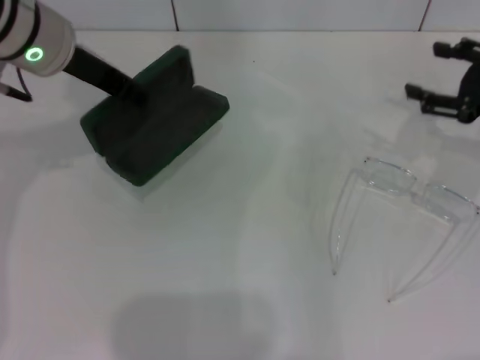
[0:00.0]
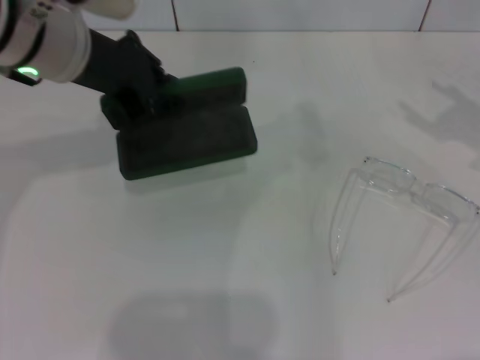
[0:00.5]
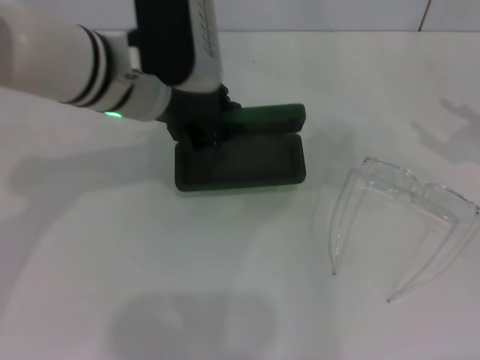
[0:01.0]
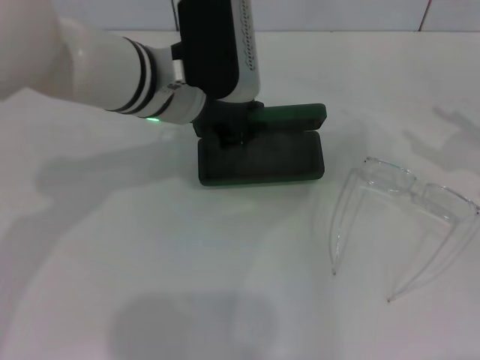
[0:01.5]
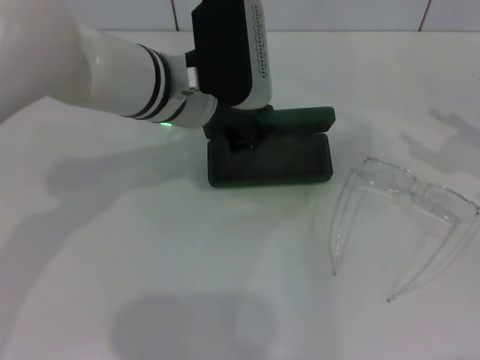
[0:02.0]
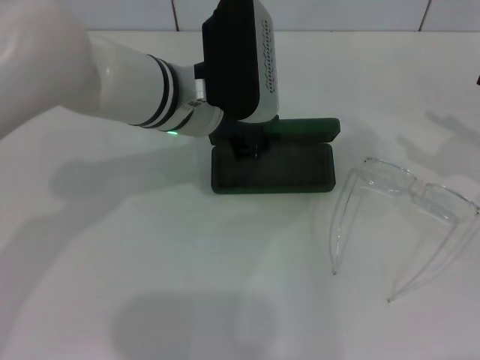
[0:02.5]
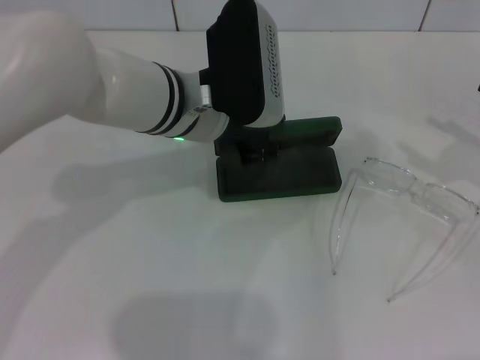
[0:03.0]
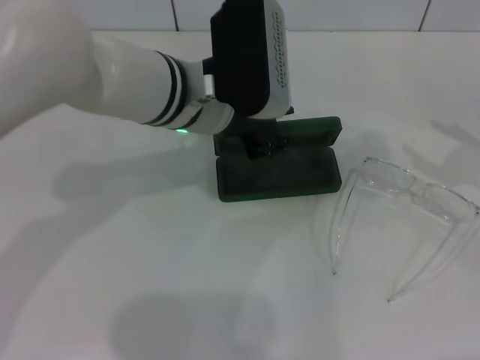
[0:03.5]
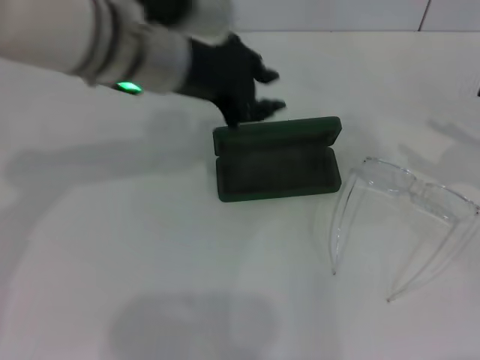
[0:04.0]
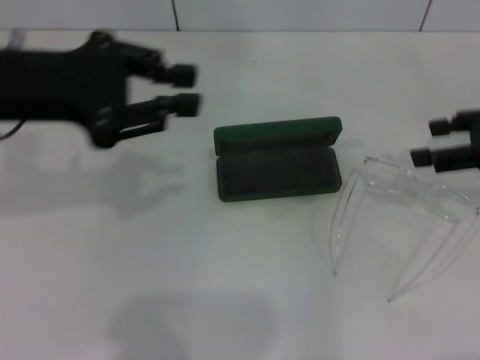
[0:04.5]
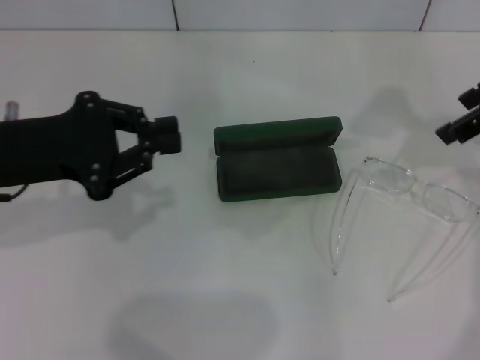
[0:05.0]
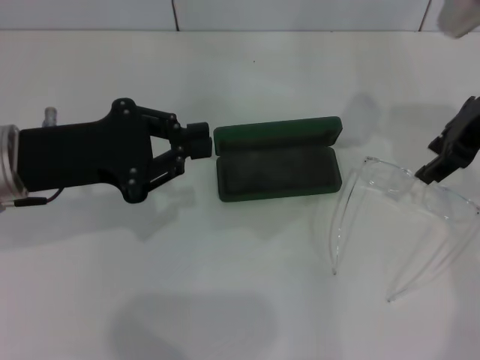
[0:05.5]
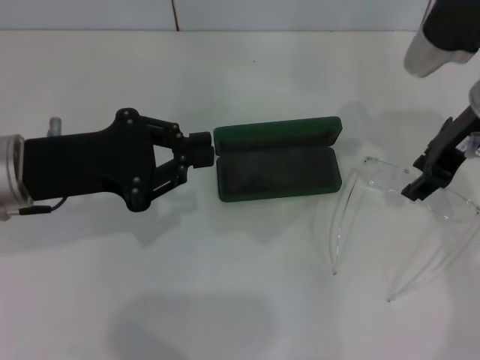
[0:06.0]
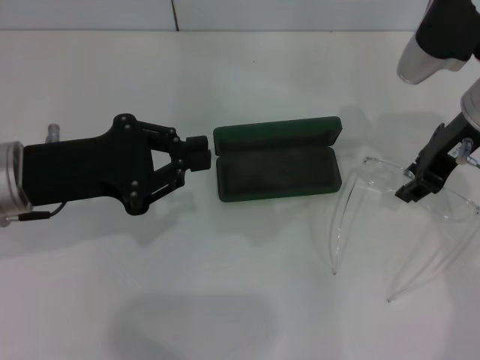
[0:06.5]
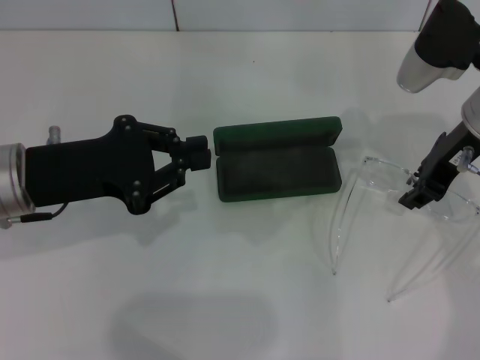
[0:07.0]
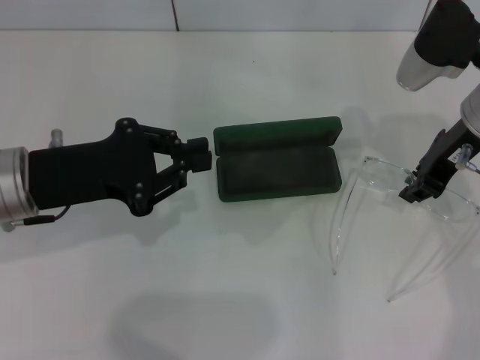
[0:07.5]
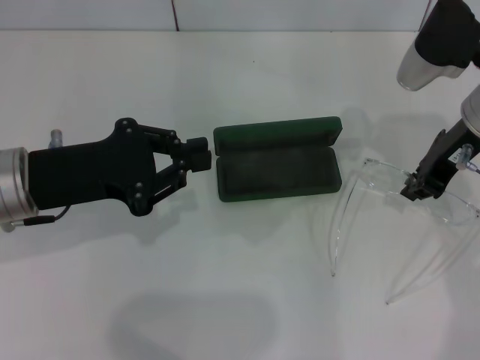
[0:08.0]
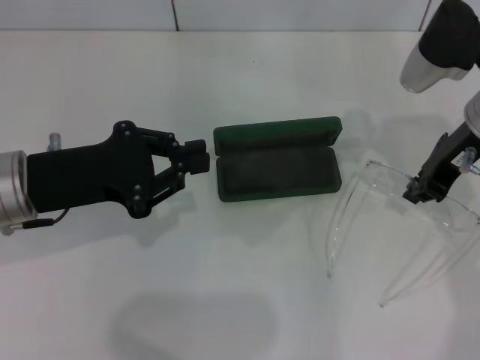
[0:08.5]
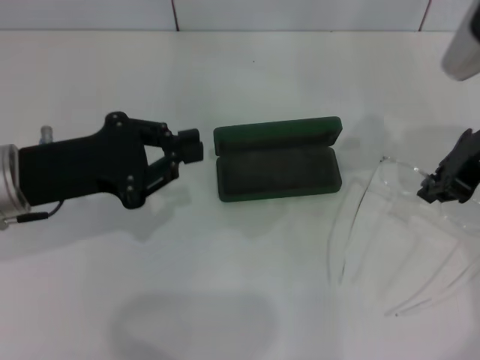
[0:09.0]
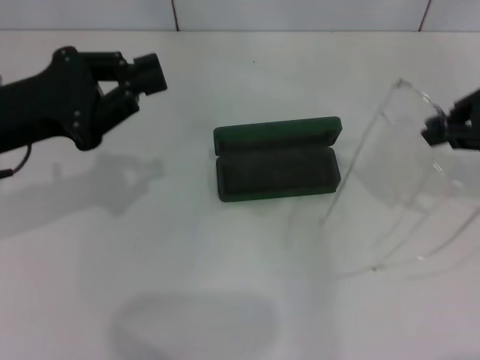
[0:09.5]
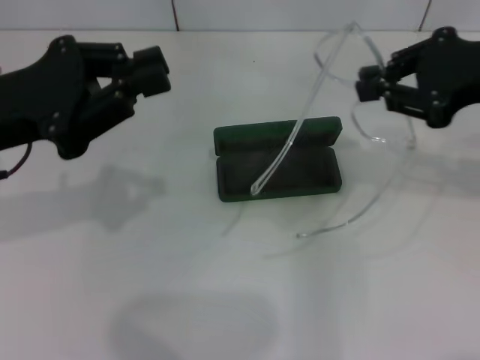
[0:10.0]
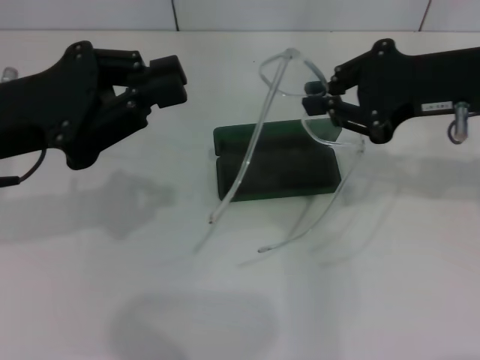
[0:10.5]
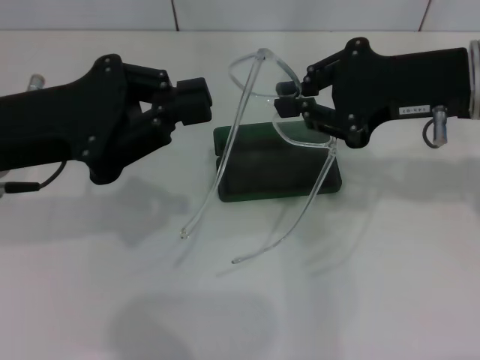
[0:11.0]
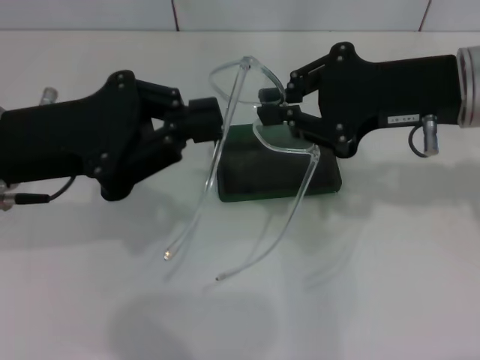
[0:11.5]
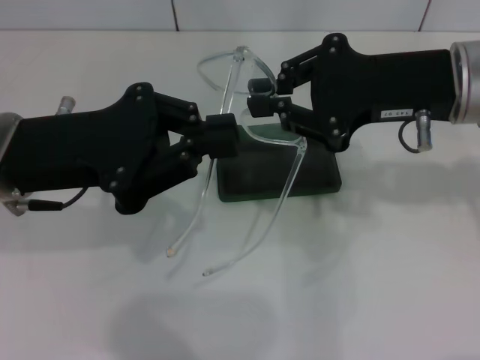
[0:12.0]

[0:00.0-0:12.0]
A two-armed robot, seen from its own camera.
Step, 0:00.0 to 0:03.0: Place the glasses case in the center of the table with your left hand.
Step, 0:03.5 to 0:08.0: Grab the eyeglass frame with your right hand.
0:00.0 to 0:02.0: The right gripper is displaced to the right and backward by about 5 cm. Meanwhile the left gripper is displaced to the right and downward by some 10 cm.
0:02.0 to 0:04.0: The left gripper is displaced upward by about 5 cm.
0:04.0 to 0:06.0: The left gripper goes about 15 cm to the left, downward and backward, while the right gripper is displaced to the left and forward by roughly 20 cm.
0:06.0 to 0:08.0: The right gripper closes.
0:08.0 to 0:10.0: The left gripper moves upward, some 5 cm. The right gripper shifts some 10 cm upward and backward.
0:10.0 to 0:12.0: The right gripper heads to the left, covering some 5 cm.

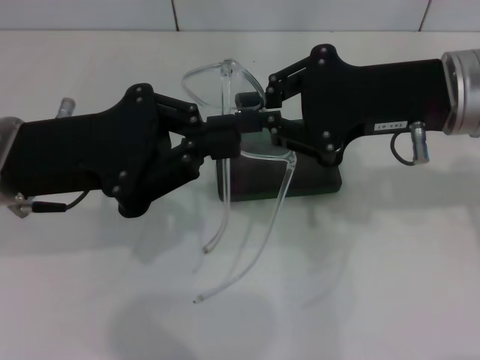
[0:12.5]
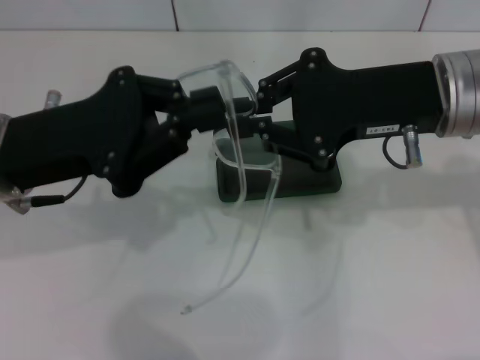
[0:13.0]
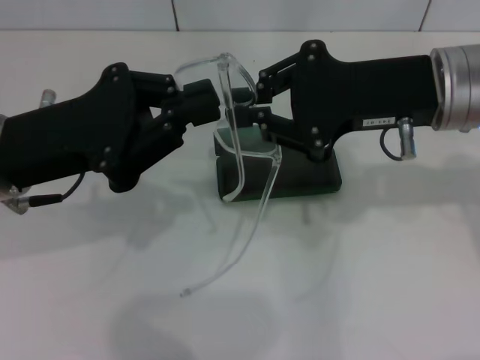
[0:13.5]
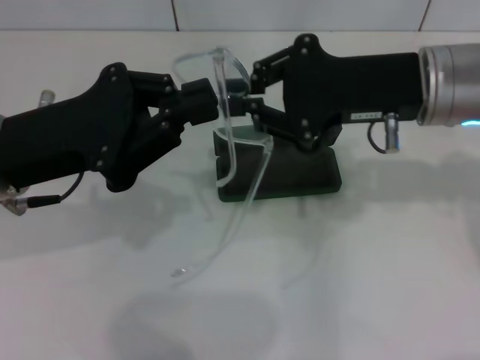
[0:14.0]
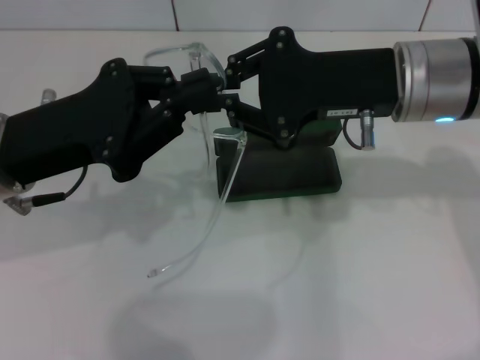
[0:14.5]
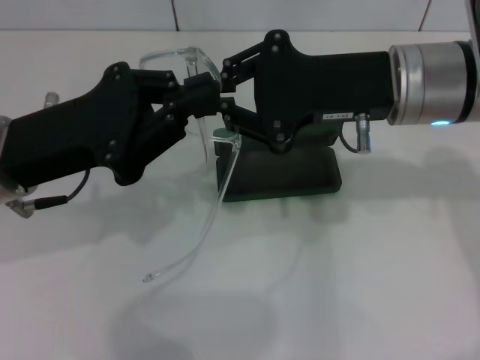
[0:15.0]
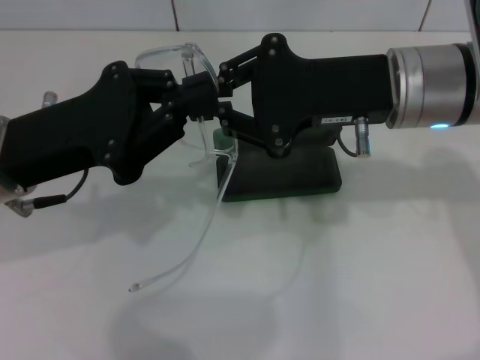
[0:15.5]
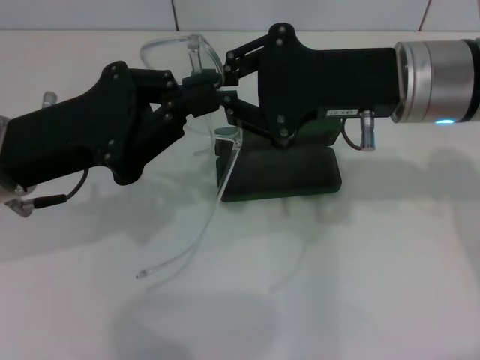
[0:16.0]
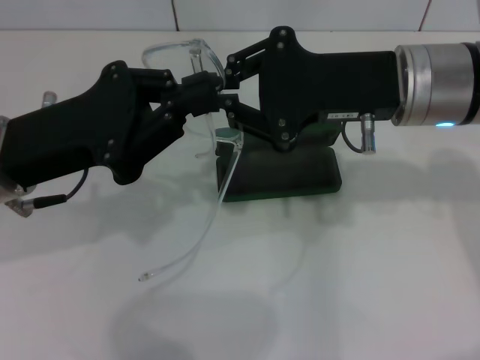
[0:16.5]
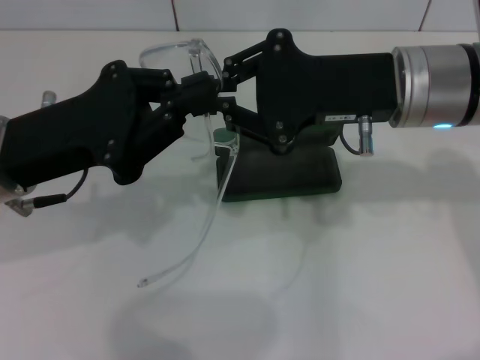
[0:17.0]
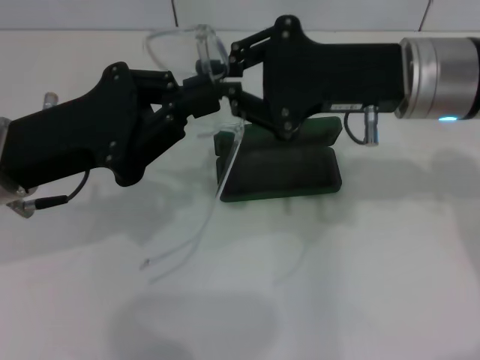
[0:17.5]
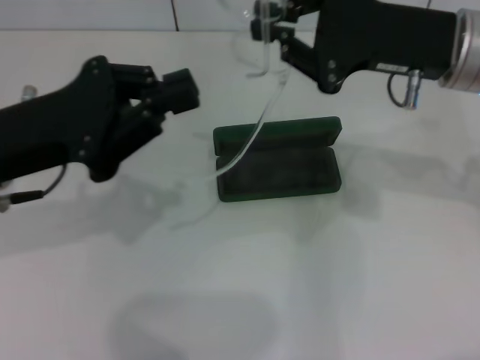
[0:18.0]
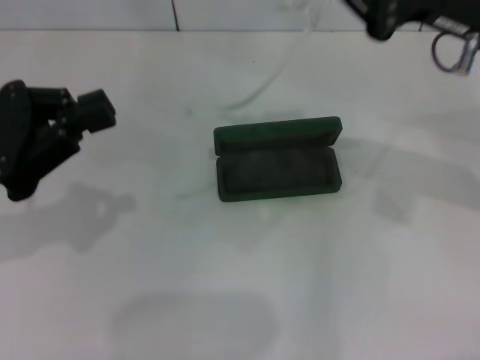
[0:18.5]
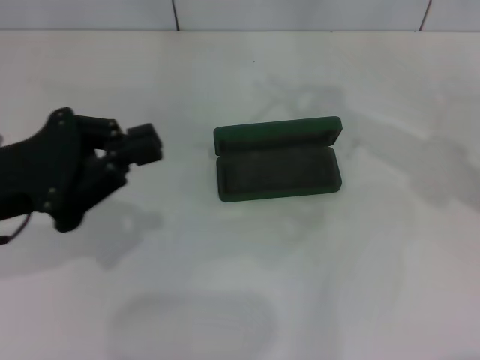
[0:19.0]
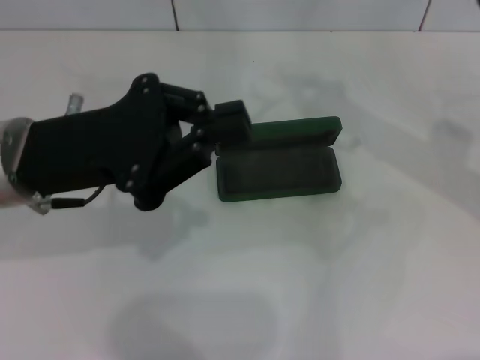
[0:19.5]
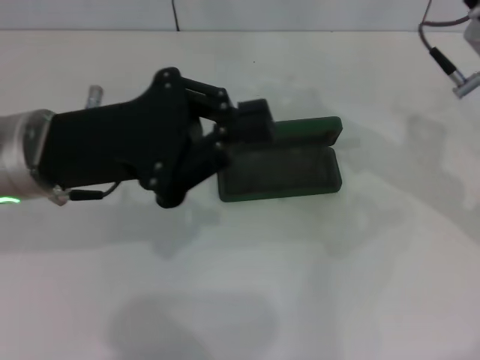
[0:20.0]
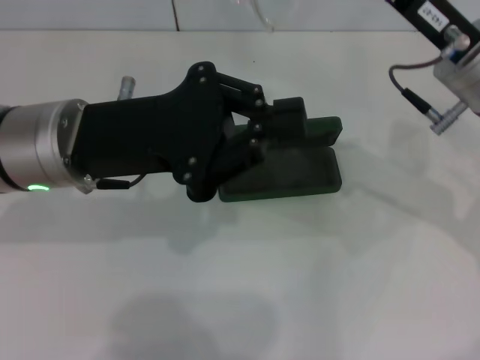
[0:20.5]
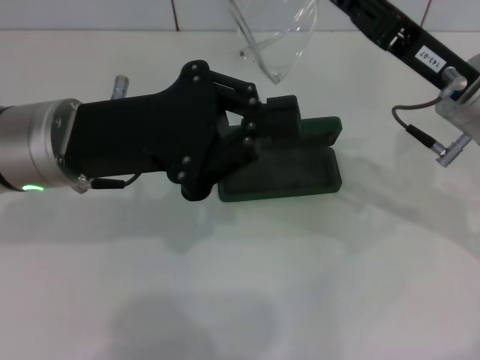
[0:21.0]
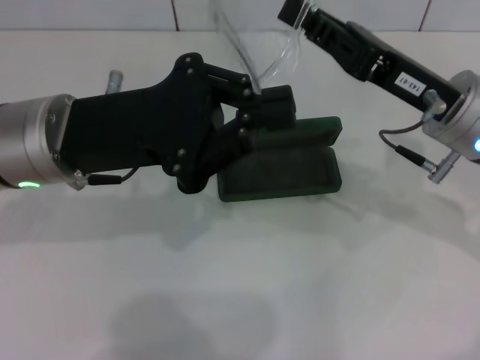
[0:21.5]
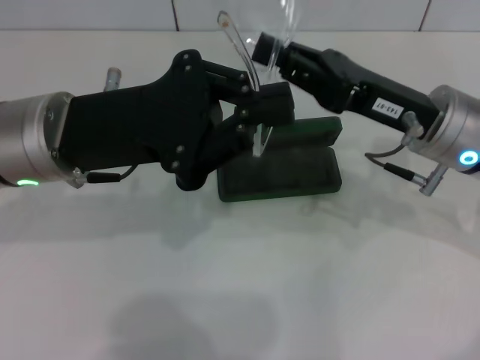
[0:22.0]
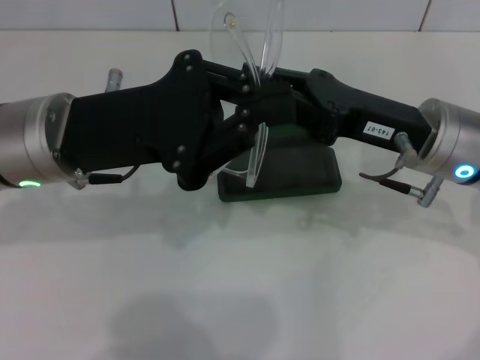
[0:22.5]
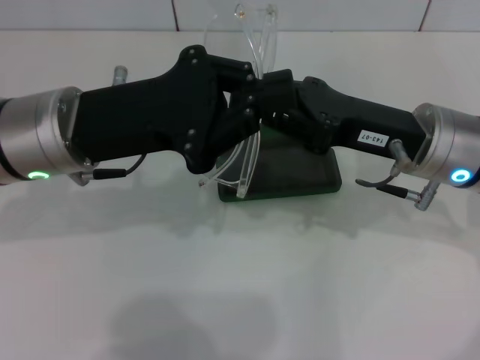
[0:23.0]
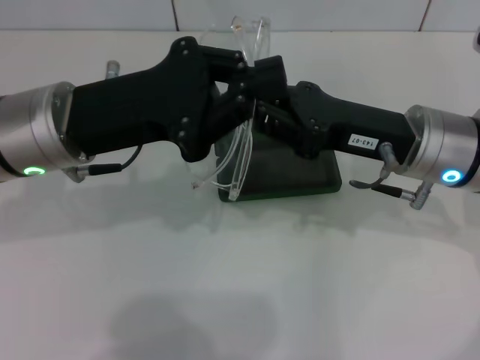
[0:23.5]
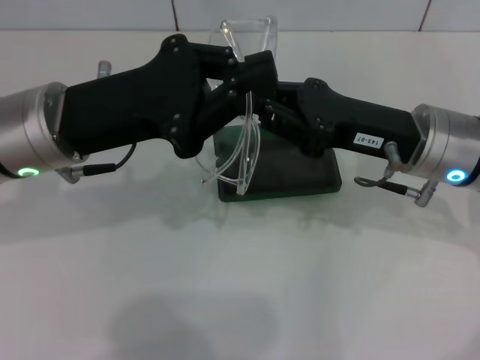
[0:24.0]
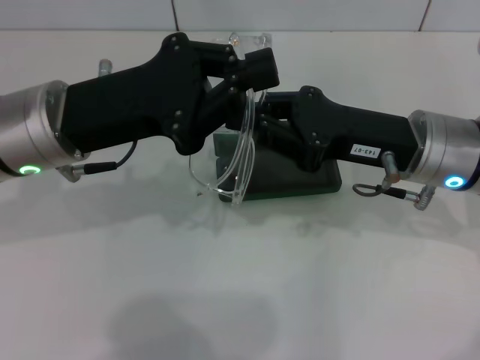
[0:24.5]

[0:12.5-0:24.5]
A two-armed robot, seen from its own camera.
0:14.5 to 0:16.5: The two grippers keep their place.
0:16.5 to 0:18.5: The right gripper heads to the right, covering some 5 cm. The left gripper goes some 5 cm to the left.
0:18.5 to 0:20.5: The right gripper ends up roughly 5 cm from where it was, while the left gripper shifts some 10 cm to the right.
0:22.5 to 0:24.5: There are only small adjustments of the grippers.

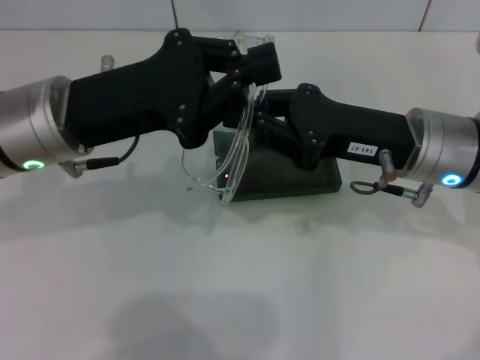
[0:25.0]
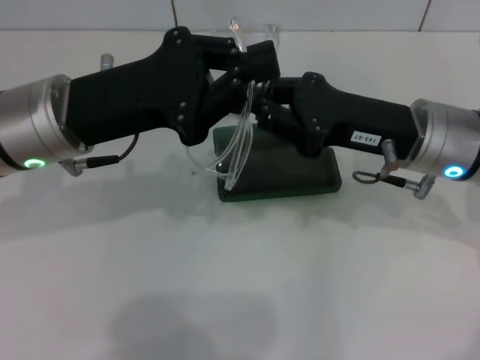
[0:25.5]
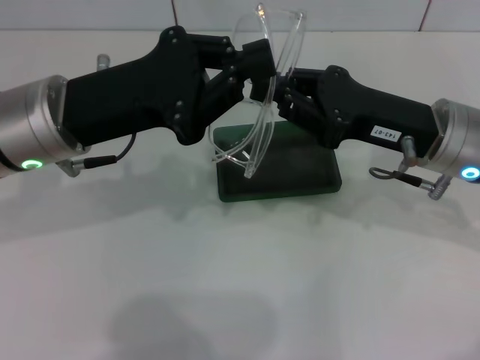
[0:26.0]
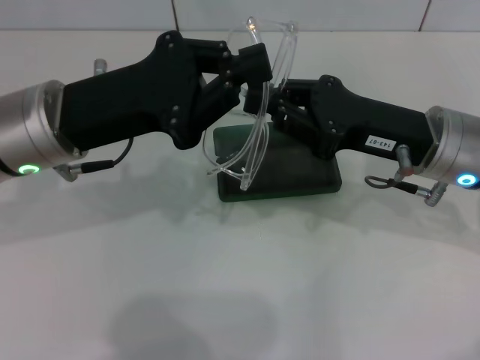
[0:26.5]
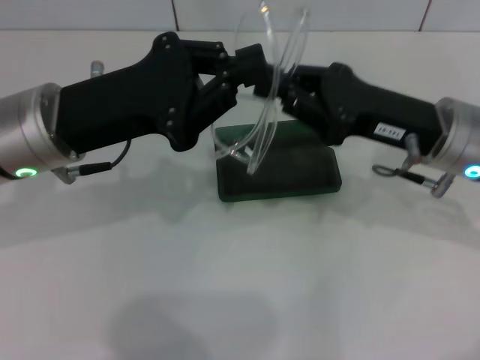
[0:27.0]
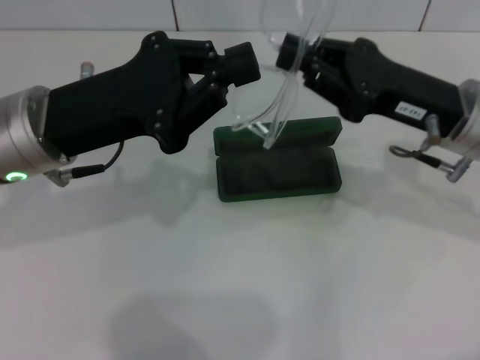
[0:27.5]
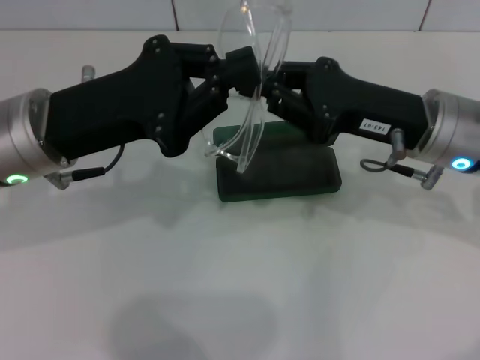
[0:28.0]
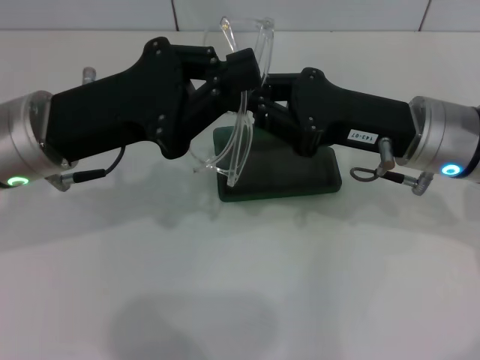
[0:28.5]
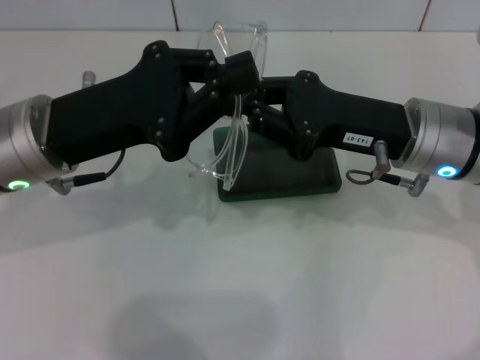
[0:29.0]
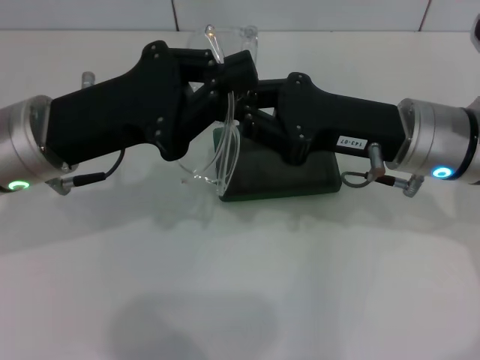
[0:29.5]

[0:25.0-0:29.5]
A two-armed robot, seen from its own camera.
0:25.0 to 0:29.5: The grippers make only small movements.
